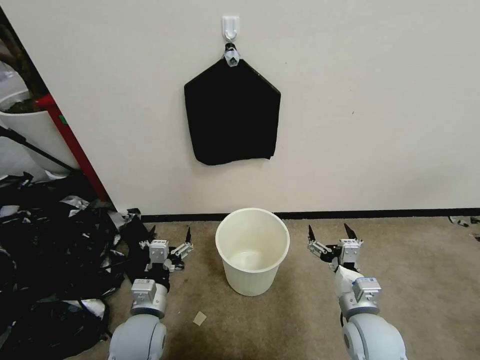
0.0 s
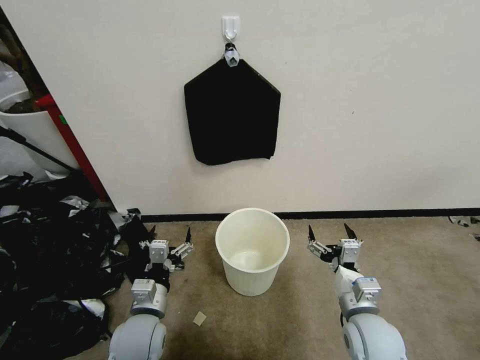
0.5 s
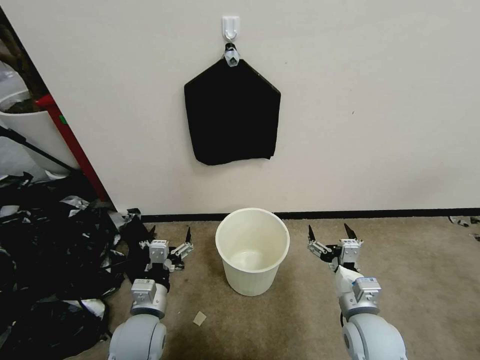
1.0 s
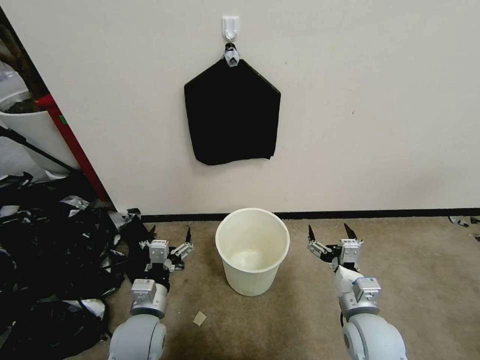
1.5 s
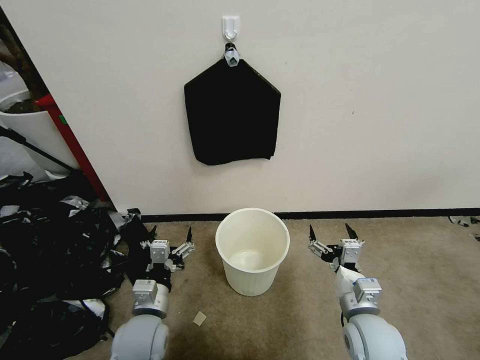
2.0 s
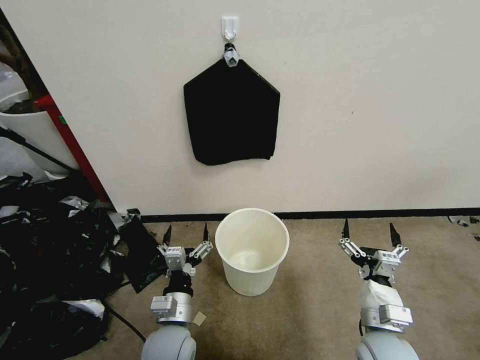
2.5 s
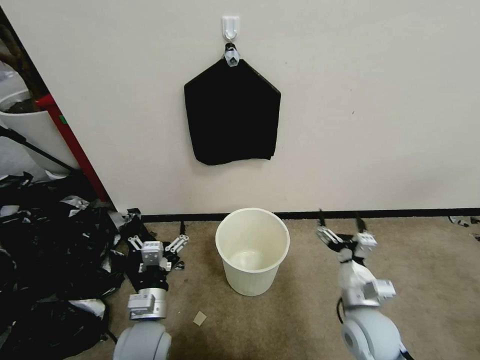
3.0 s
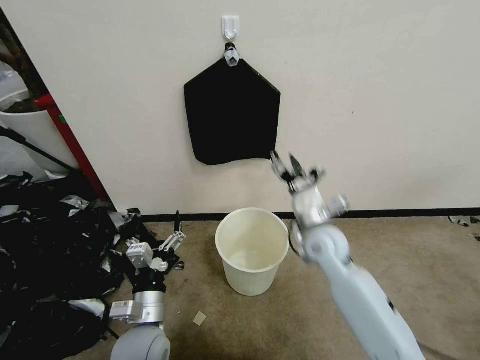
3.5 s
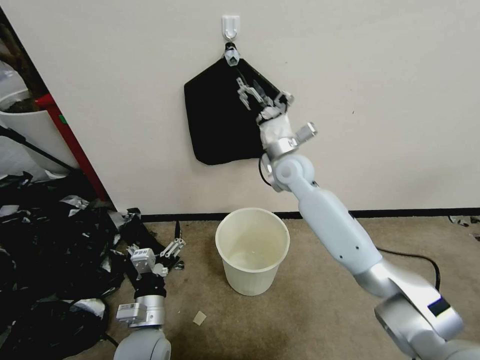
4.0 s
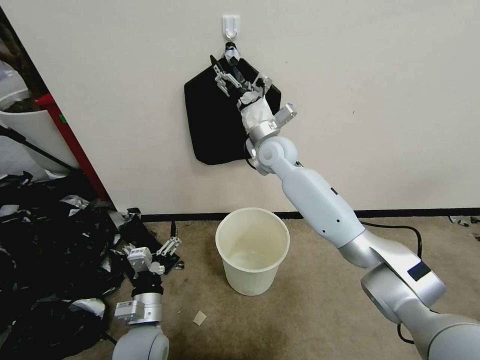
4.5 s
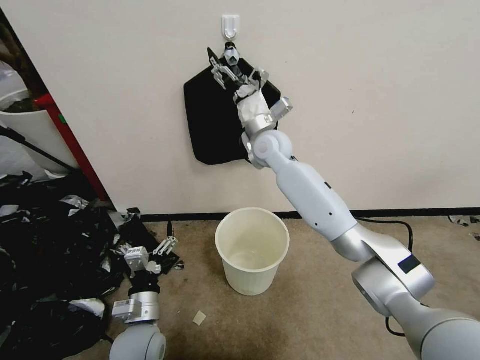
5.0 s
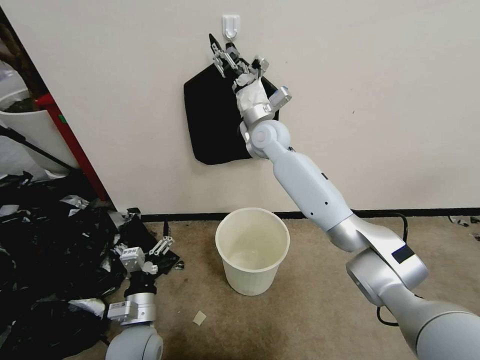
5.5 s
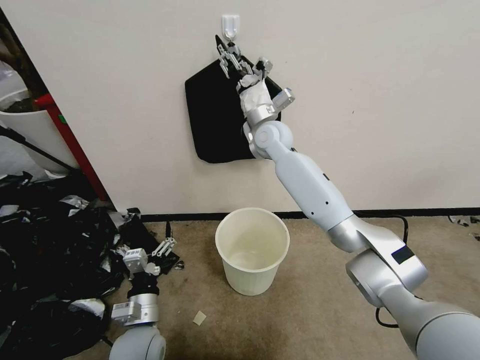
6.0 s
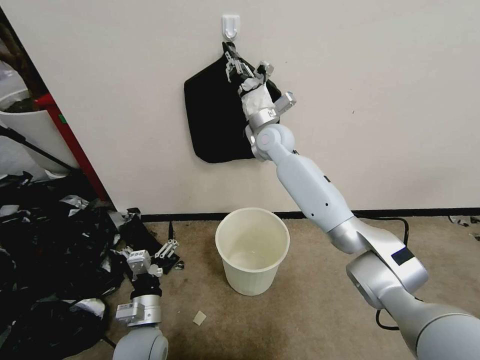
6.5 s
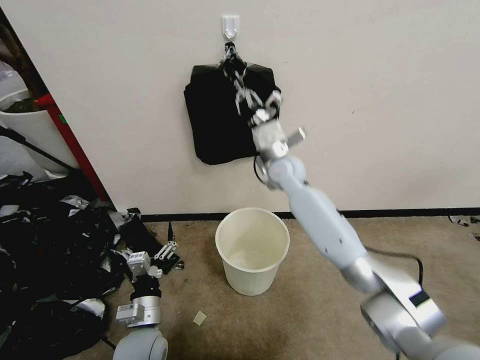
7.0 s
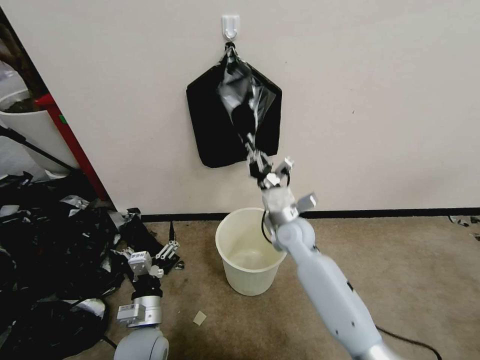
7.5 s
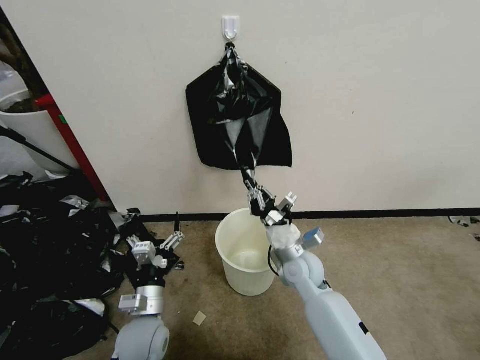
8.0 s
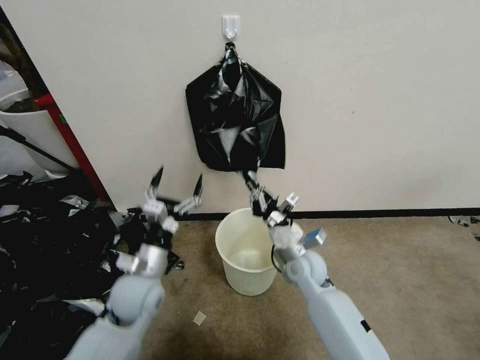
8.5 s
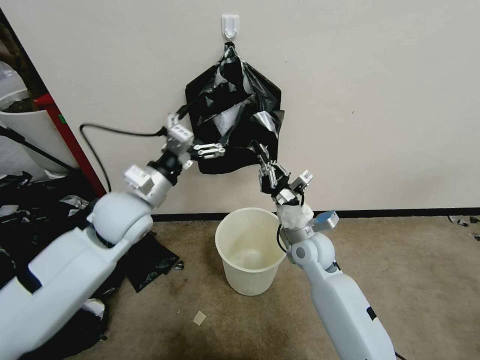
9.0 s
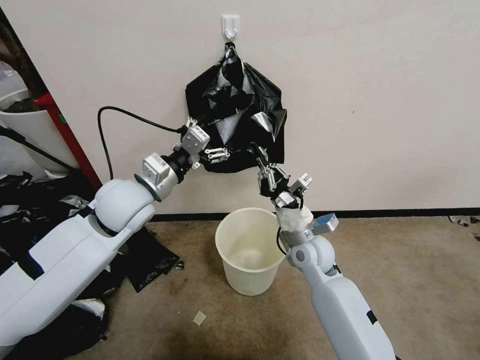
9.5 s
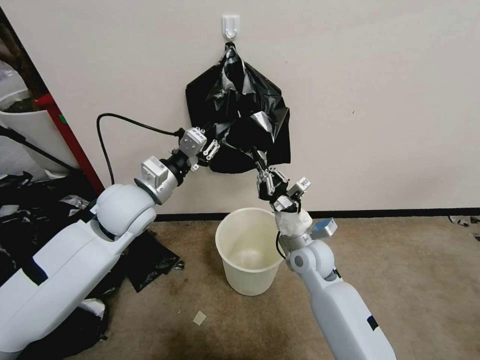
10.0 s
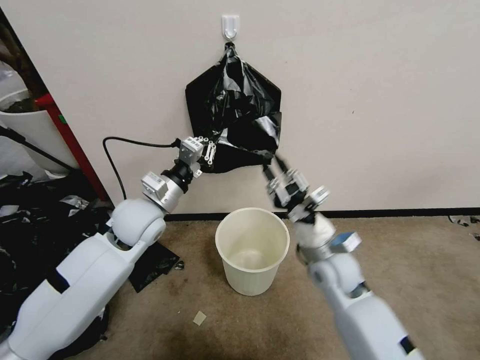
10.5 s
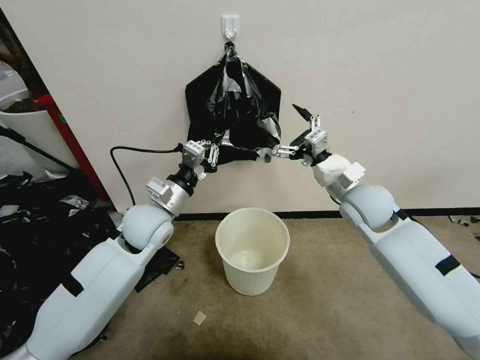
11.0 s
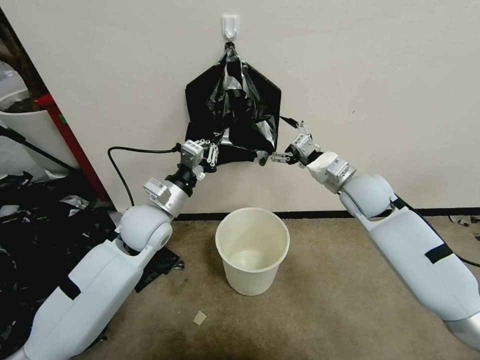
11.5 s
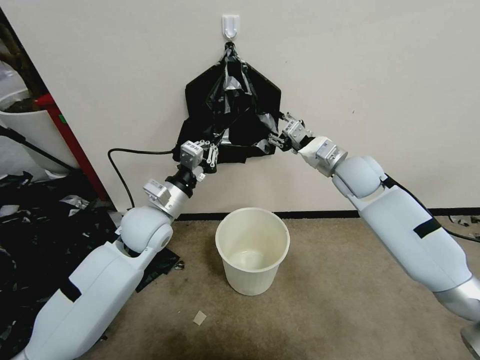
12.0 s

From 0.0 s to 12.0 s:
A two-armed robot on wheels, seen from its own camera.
Task of the whole recording: Place a trash bag onto the trash bin.
From 2.0 s to 4.0 s: The right gripper heads forward, upward and to the left, covering approximately 35 cm.
From 4.0 s to 6.0 s: The right gripper moves forward, about 5 cm, and closes its fingers.
From 6.0 s to 8.0 s: The right gripper moves backward and downward, some 35 cm, and closes.
From 8.0 s to 10.0 s: The left gripper shifts roughly 30 cm upward and forward, and closes up; the right gripper shifts by approximately 5 cm.
From 10.0 s to 12.0 s: The right gripper is displaced upward, forward and to the right by approximately 20 cm, and opens up. Meanwhile the left gripper moves downward, approximately 5 cm.

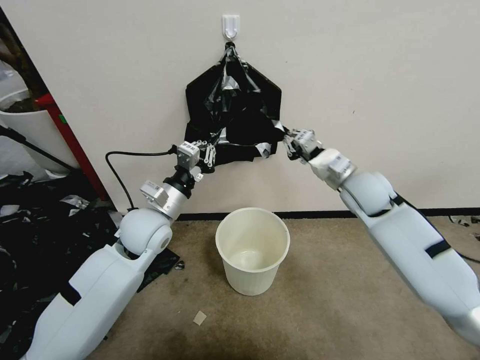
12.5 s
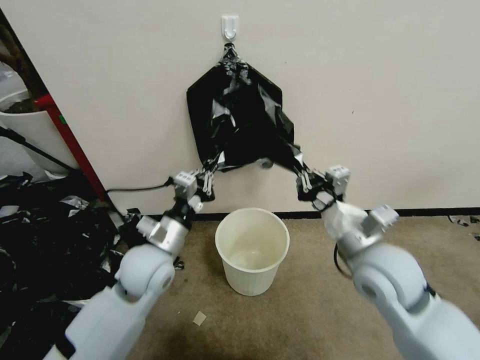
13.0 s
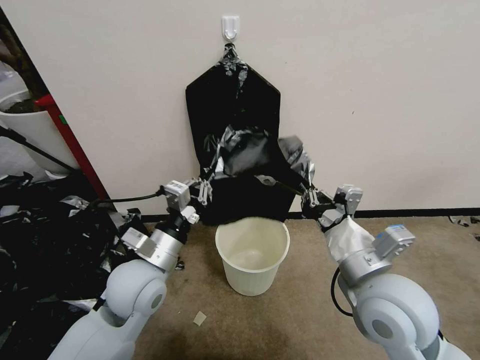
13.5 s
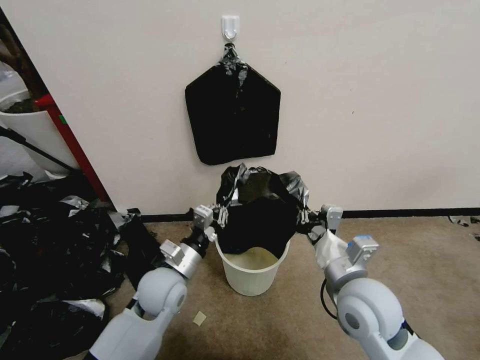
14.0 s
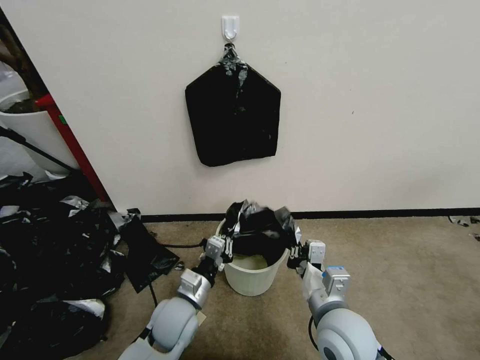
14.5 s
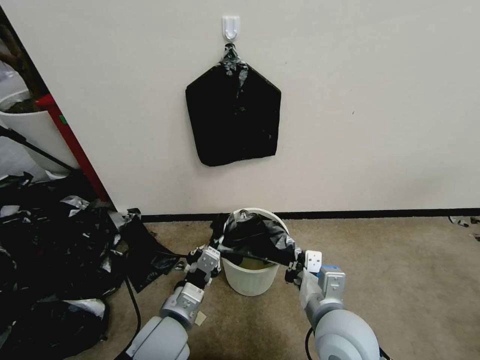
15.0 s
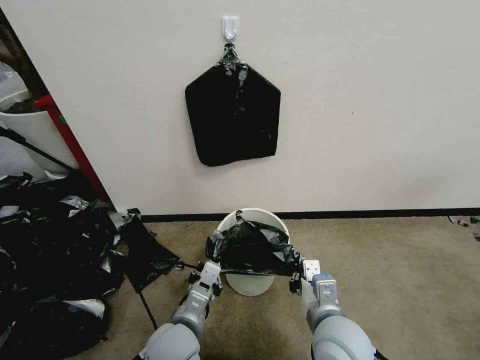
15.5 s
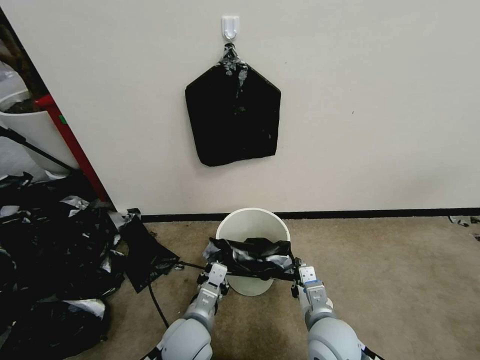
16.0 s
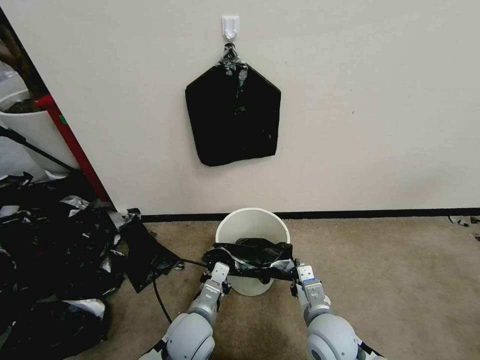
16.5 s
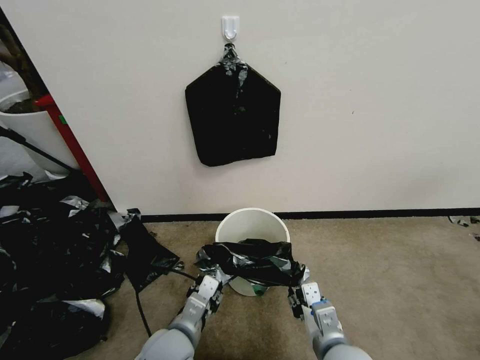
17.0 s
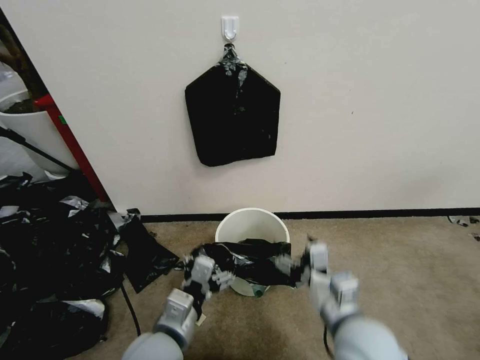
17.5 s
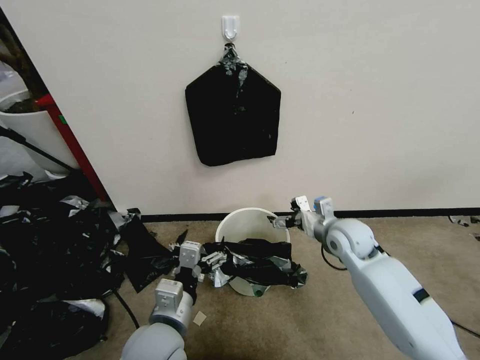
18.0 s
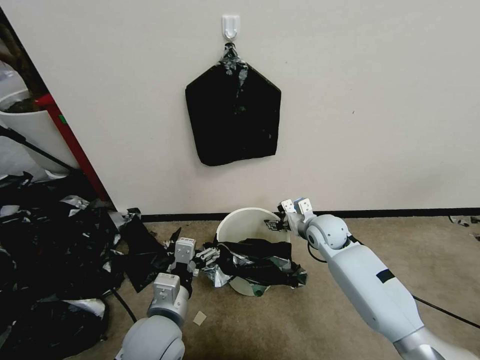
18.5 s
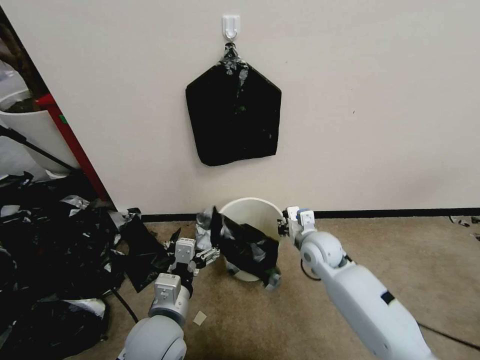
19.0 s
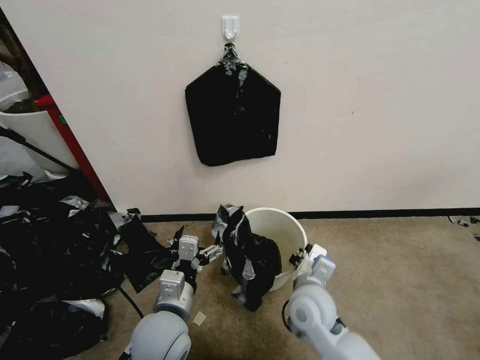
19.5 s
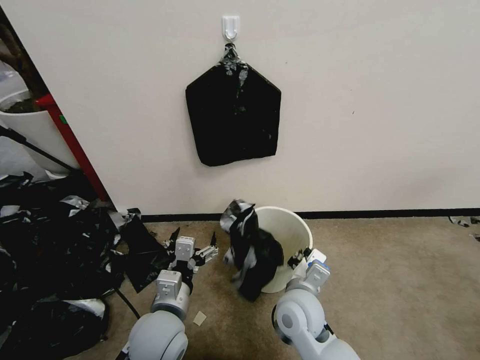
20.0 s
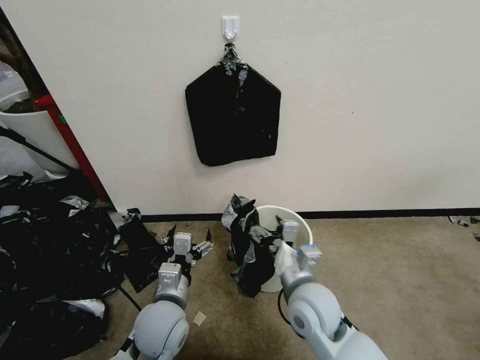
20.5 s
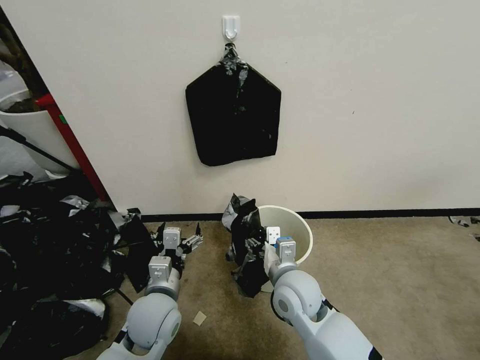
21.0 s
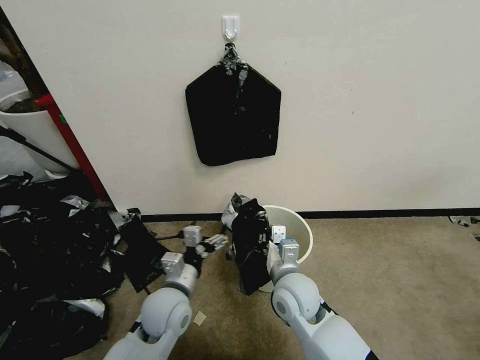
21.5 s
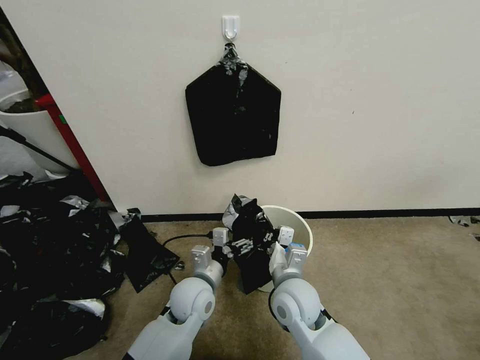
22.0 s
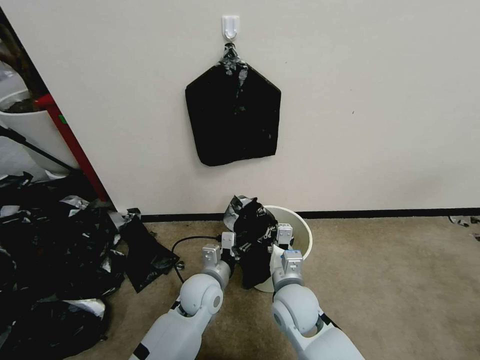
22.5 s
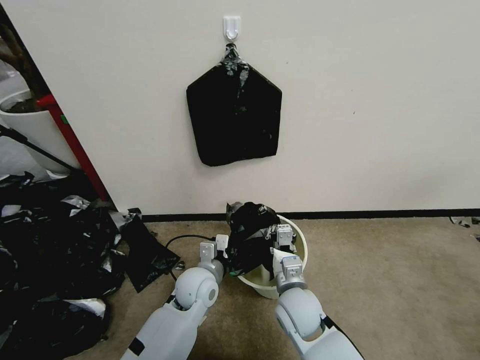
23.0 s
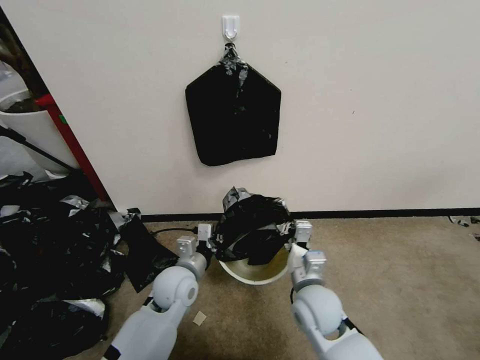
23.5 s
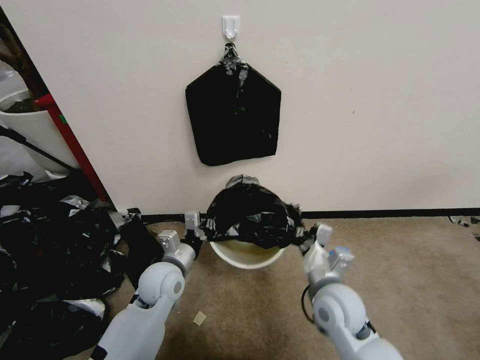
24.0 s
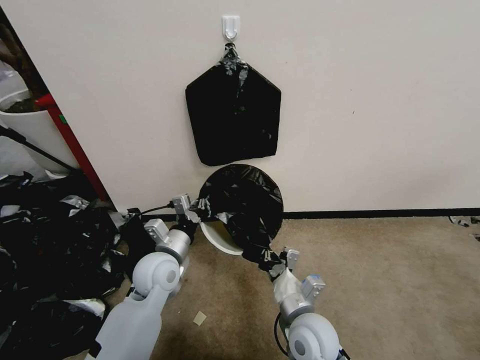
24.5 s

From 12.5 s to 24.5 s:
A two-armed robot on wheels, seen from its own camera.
Task of the whole recording: Place a trash bag onto the trash bin.
From 12.5 s to 14.5 s: The left gripper moves downward and backward, roughly 20 cm, while the right gripper is displaced backward, downward and to the left by roughly 30 cm.
From 14.5 s to 16.5 s: The right gripper moves downward, roughly 10 cm.
From 16.5 s to 18.5 s: The left gripper moves upward, roughly 10 cm, and opens; the right gripper travels forward by roughly 25 cm, and opens up.
From 18.5 s to 20.5 s: The left gripper ends up roughly 5 cm from where it was, while the right gripper moves backward and to the left, about 20 cm, and closes, then opens again.
From 20.5 s to 22.5 s: The right gripper shifts approximately 5 cm downward, and closes up. The left gripper goes approximately 10 cm forward, to the right and downward, and closes its fingers.
From 22.5 s to 24.5 s: The right gripper goes about 5 cm backward, and moves about 10 cm to the right and comes back. The left gripper shifts some 10 cm to the left and upward, and closes.

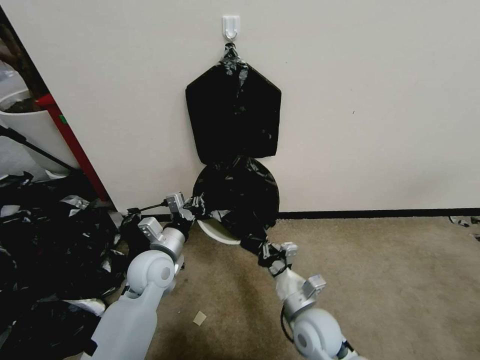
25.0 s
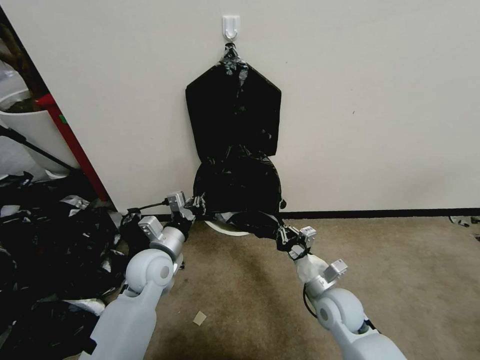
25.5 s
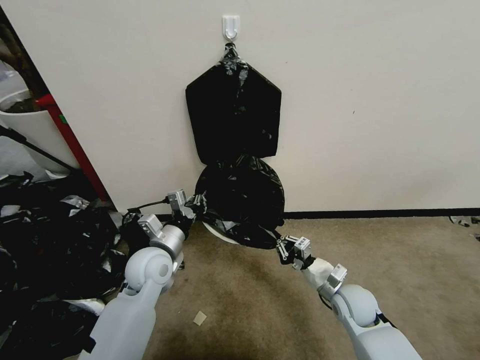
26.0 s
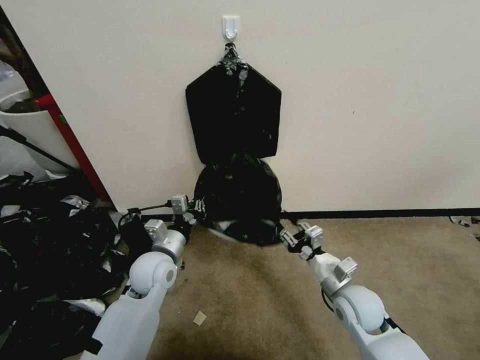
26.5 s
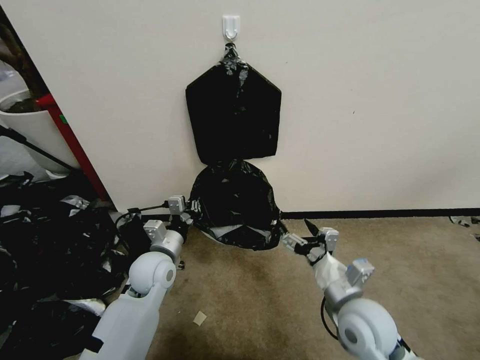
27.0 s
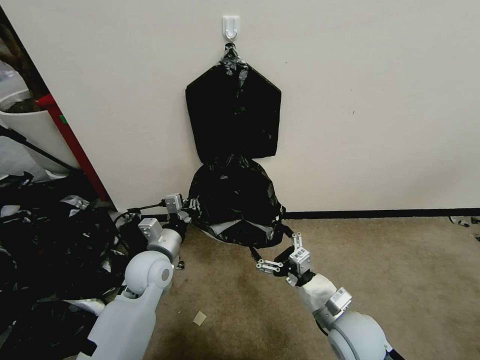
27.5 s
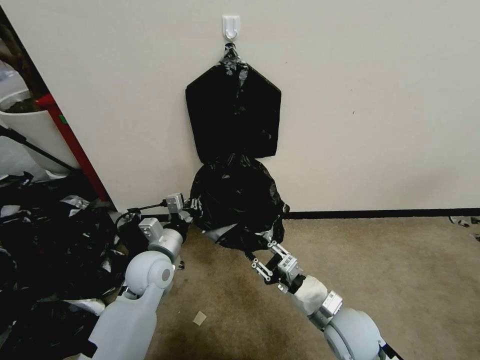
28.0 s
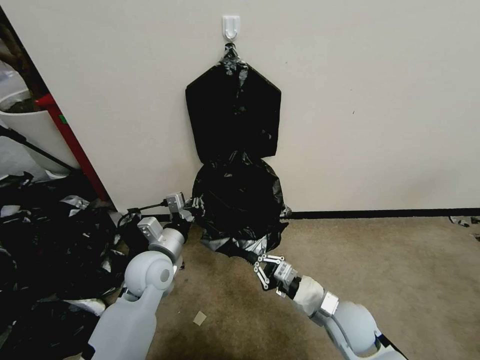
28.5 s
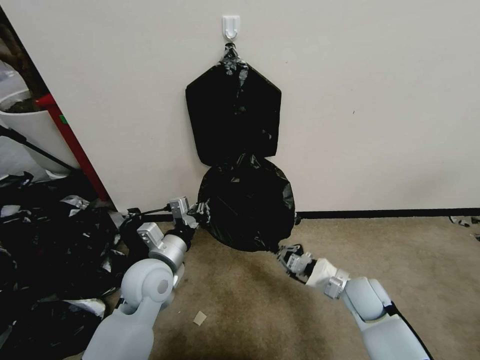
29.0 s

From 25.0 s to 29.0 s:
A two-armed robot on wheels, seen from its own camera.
Task of the whole recording: Place a trash bag onto the trash bin.
From 25.0 s to 27.0 s: The right gripper heads upward and to the right, covering approximately 10 cm, and opens its fingers.
From 27.0 s to 29.0 s: The right gripper shifts approximately 15 cm downward, forward and to the right, and closes, while the left gripper moves roughly 5 cm.
